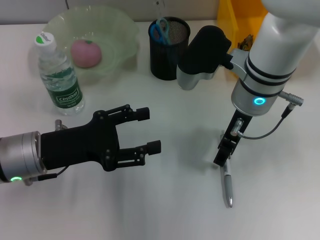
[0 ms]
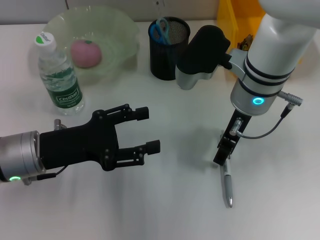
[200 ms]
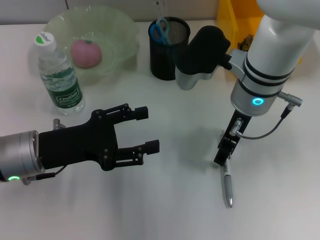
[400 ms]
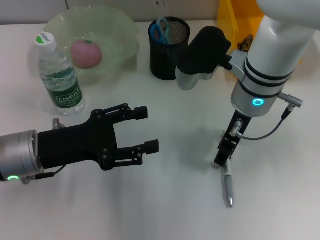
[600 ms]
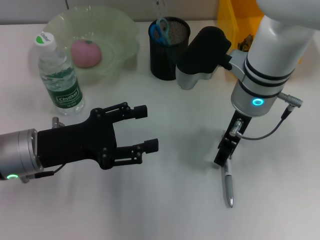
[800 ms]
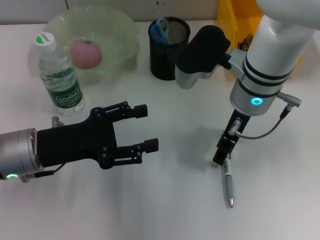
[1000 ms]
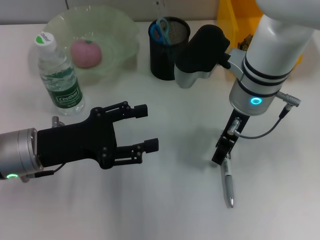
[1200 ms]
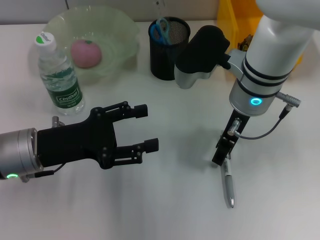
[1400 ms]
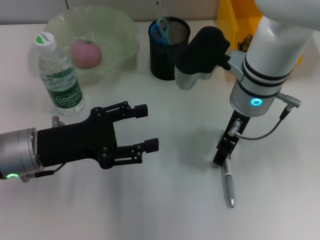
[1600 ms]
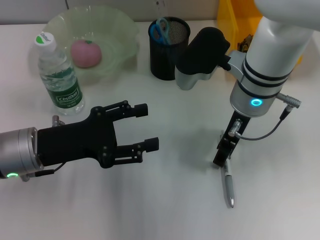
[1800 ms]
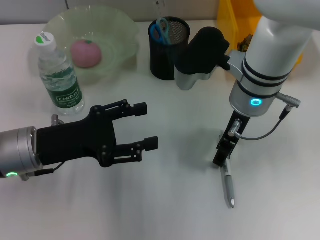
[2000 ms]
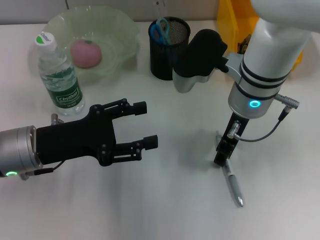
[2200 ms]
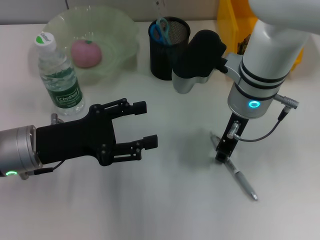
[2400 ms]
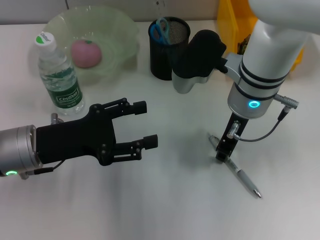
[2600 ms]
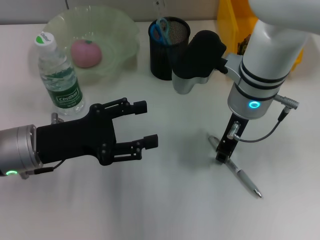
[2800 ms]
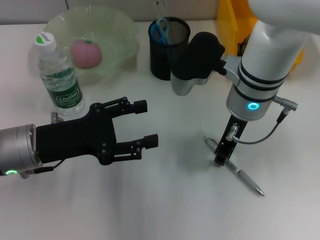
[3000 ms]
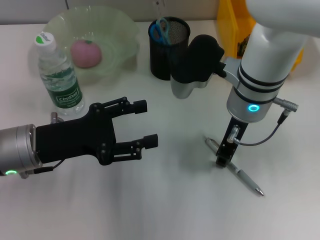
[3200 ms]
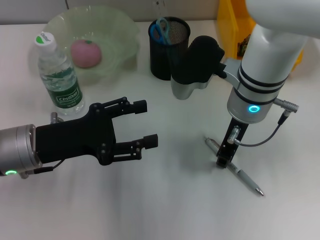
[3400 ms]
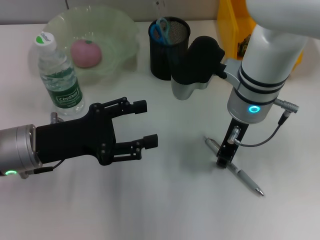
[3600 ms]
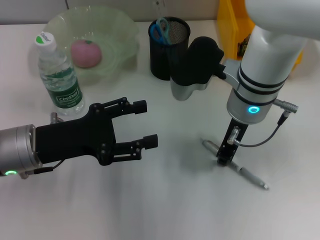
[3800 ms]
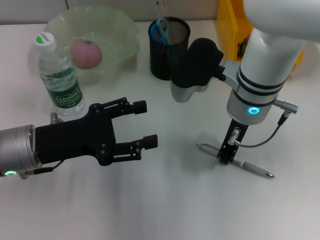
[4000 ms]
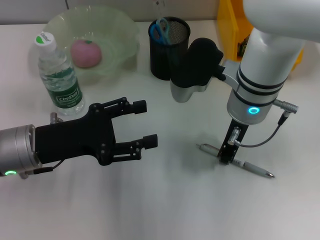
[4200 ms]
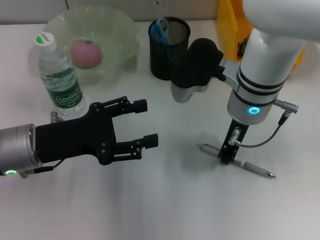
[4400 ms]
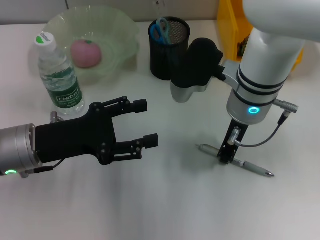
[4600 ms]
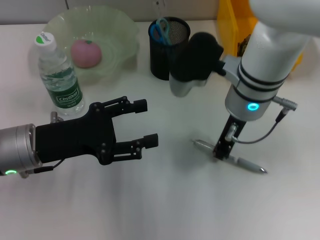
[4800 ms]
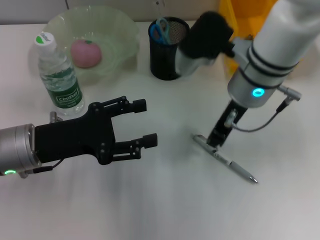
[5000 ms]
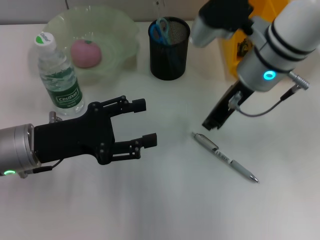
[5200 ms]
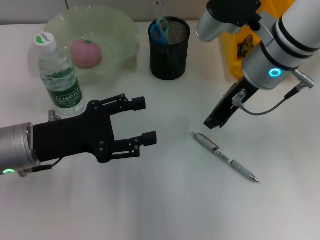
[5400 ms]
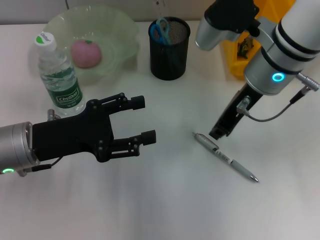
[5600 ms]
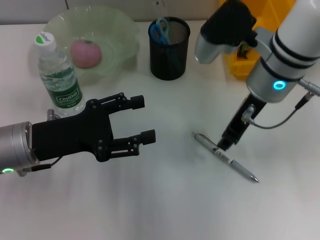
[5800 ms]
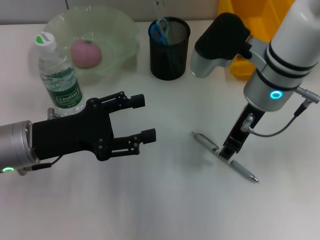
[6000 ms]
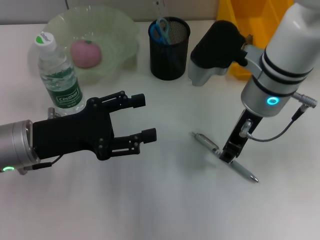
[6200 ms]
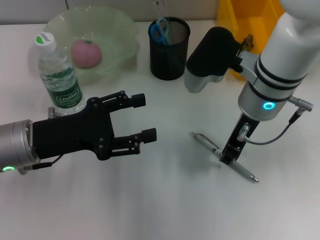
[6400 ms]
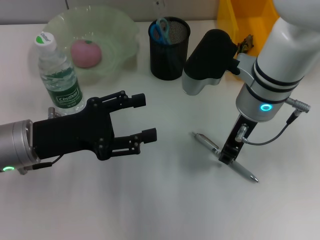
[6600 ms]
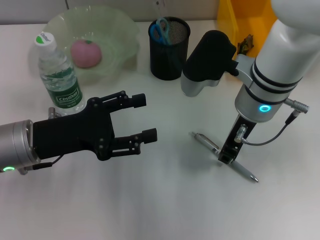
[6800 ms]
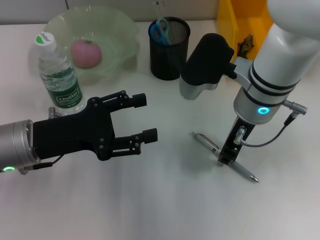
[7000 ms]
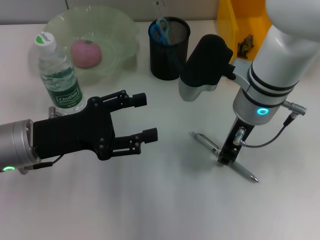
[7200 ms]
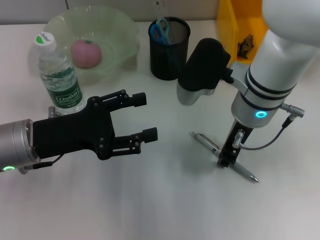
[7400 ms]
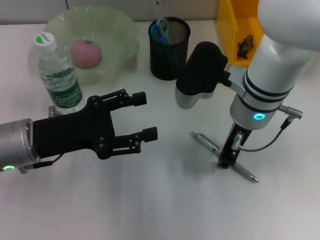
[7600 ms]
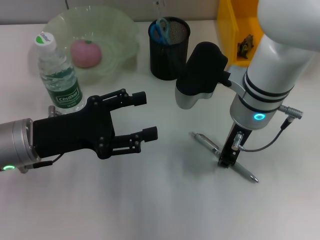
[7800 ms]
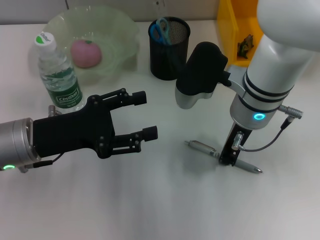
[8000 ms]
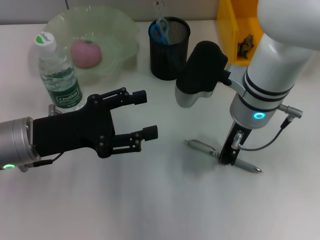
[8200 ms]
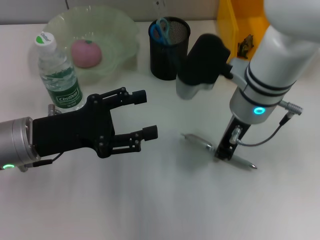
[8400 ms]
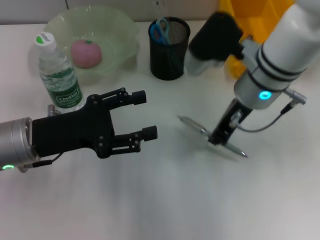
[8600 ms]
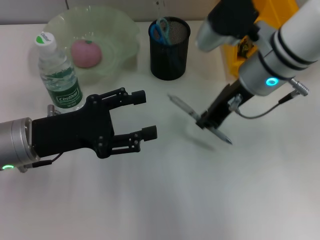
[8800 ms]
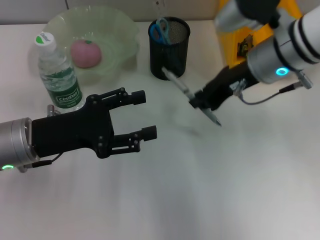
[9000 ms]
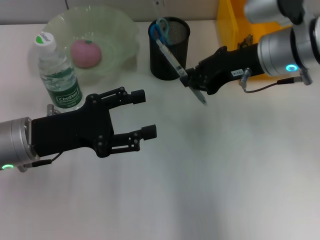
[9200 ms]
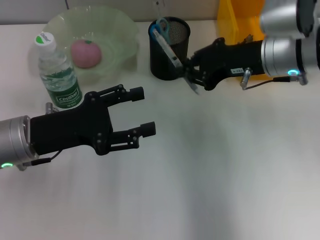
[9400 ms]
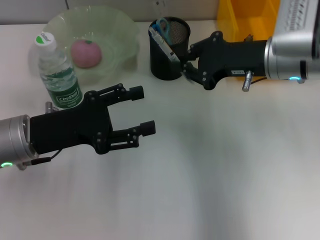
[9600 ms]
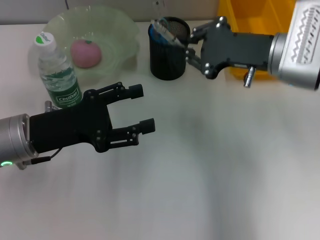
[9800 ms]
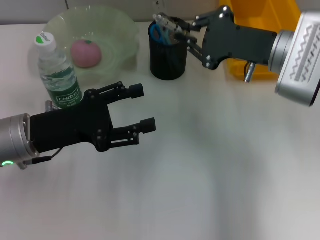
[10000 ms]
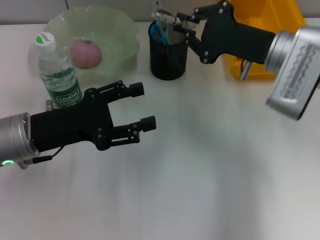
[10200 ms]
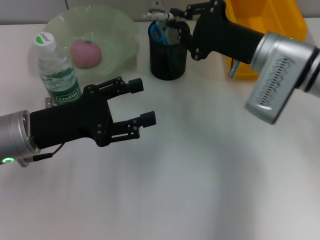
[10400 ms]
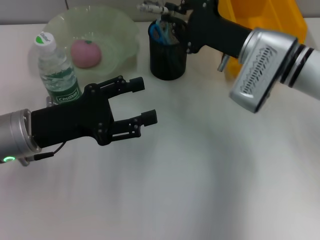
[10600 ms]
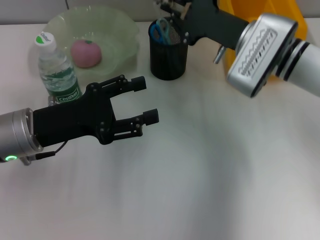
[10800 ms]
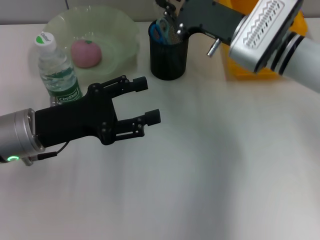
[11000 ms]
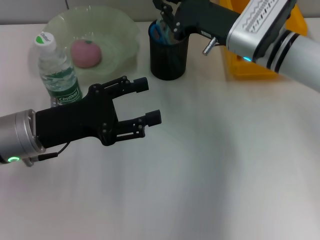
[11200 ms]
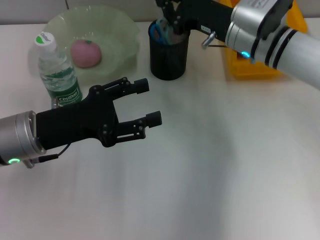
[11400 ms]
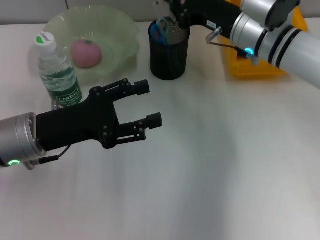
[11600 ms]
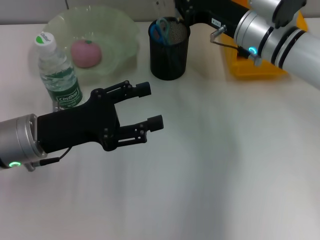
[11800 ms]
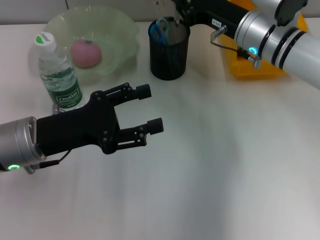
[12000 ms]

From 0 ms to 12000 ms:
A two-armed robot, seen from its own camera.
Step, from 0 ms to 8000 ms: Grab the gray spring-action pen with the right hand.
From 0 ms to 1600 ms: Neither gripper changes place.
From 1600 ms to 3000 ms: The right gripper closes its fingers.
From 3000 ms to 4400 ms: The two grippers keep their place.
From 6000 ms to 7600 ms: The grippers make only small movements.
From 7600 ms to 9000 ms: The right gripper travels to the right by about 5 cm.
From 9000 ms to 10400 ms: The right gripper goes about 5 cm downward.

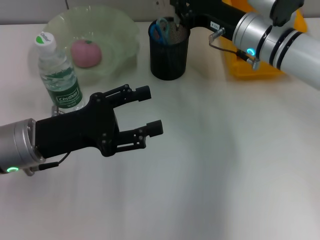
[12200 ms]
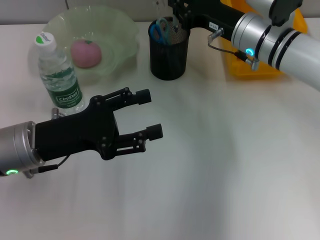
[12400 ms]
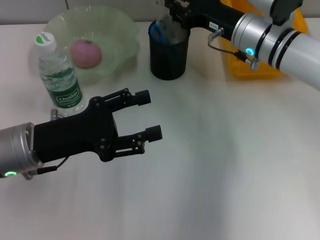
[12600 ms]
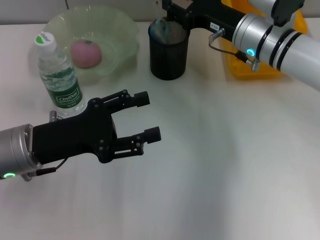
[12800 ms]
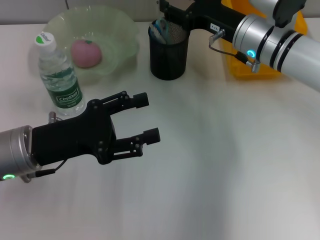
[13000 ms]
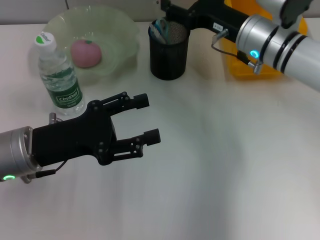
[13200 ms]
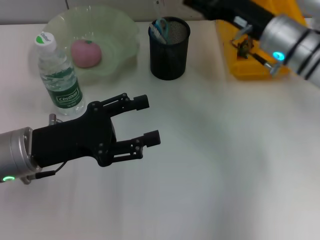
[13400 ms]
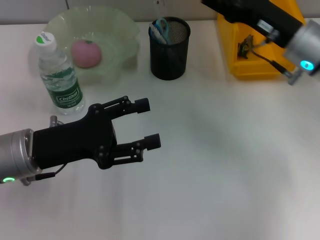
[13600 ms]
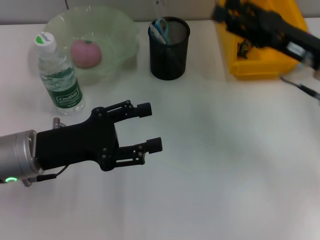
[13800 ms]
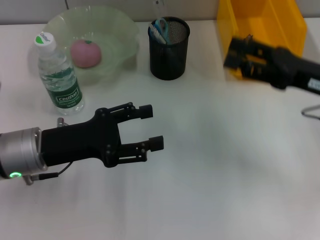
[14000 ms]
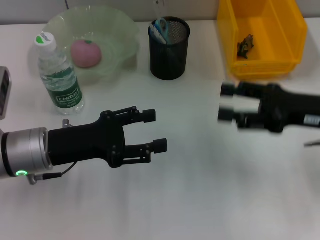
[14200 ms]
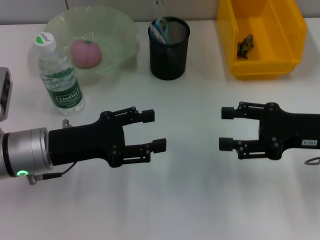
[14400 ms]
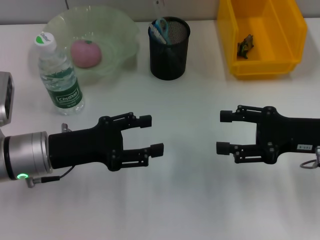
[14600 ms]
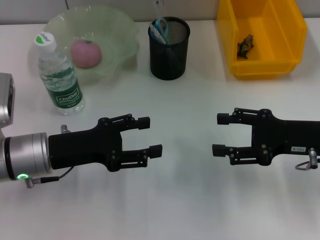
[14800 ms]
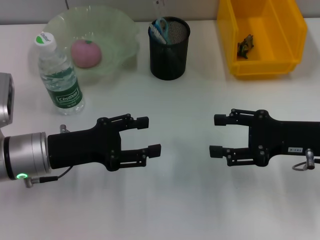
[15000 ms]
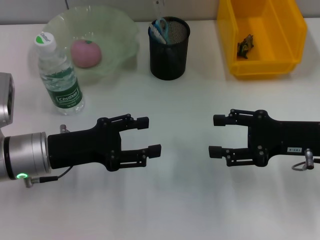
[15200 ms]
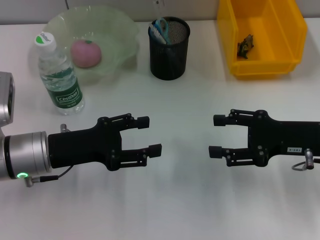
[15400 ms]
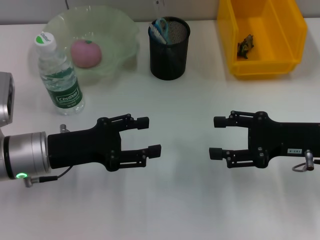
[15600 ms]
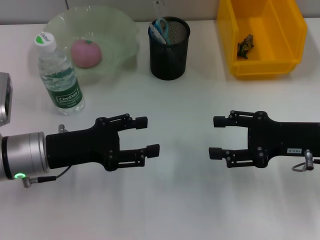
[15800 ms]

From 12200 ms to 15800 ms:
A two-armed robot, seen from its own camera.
From 12200 ms to 14000 ms: The right gripper is displaced to the right and backward by about 15 cm, and opens.

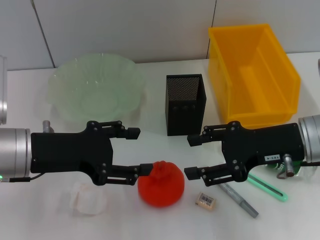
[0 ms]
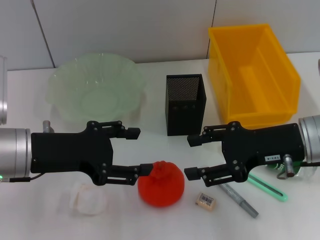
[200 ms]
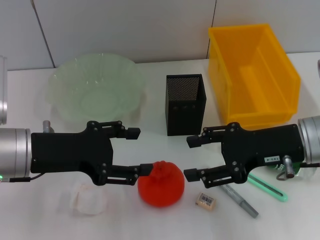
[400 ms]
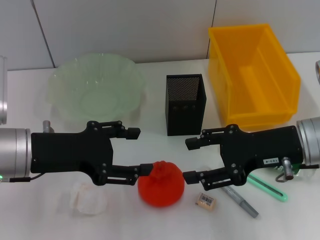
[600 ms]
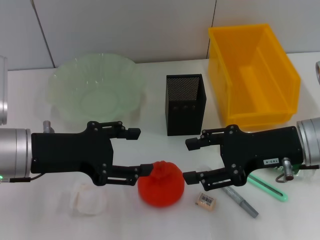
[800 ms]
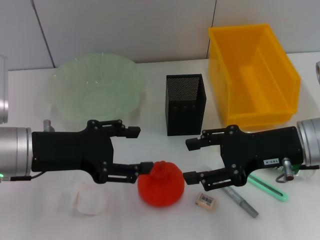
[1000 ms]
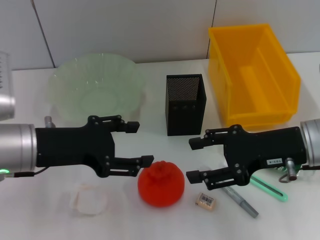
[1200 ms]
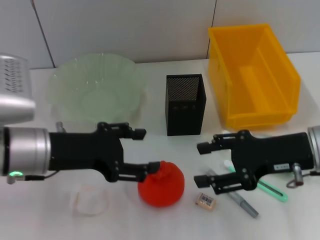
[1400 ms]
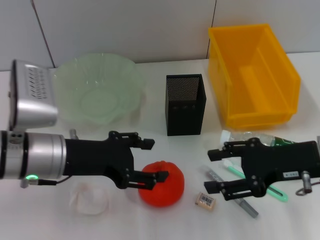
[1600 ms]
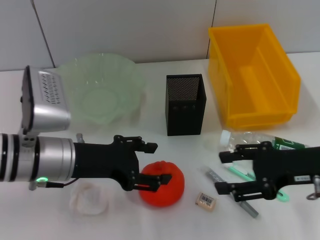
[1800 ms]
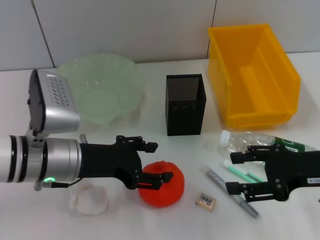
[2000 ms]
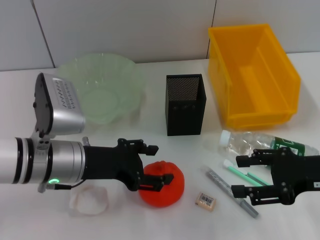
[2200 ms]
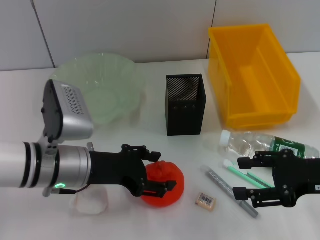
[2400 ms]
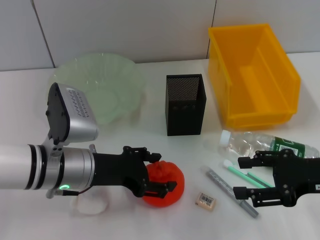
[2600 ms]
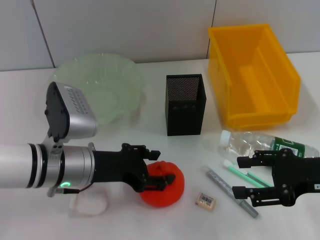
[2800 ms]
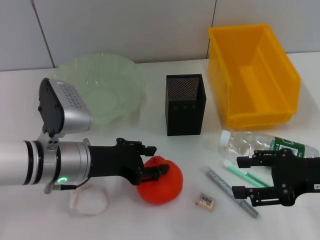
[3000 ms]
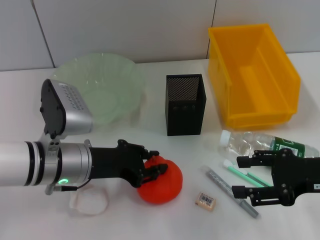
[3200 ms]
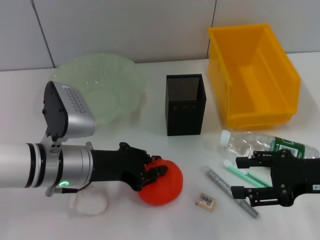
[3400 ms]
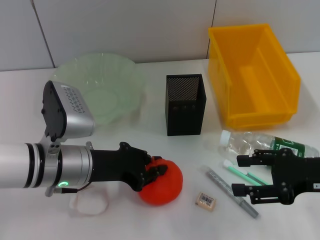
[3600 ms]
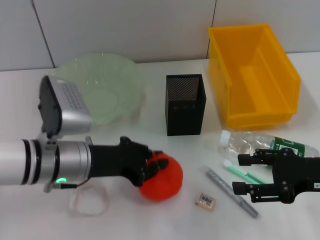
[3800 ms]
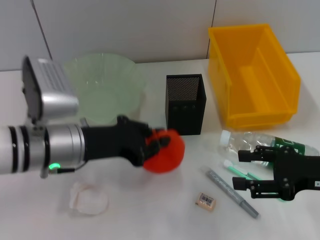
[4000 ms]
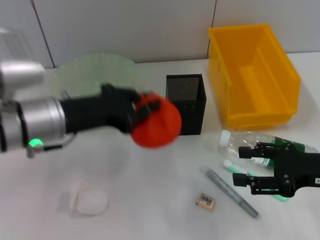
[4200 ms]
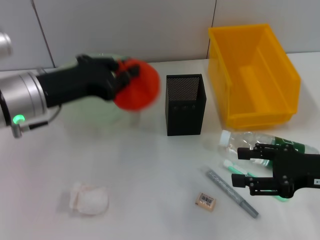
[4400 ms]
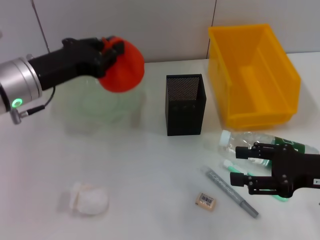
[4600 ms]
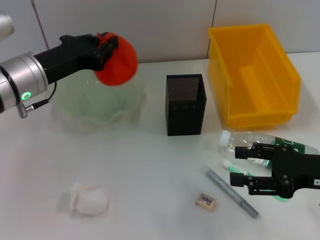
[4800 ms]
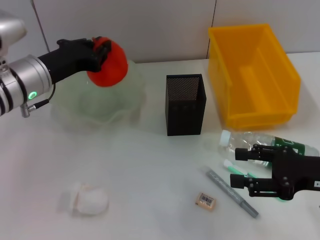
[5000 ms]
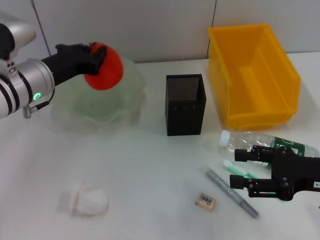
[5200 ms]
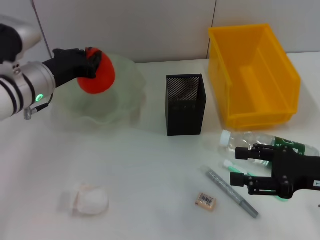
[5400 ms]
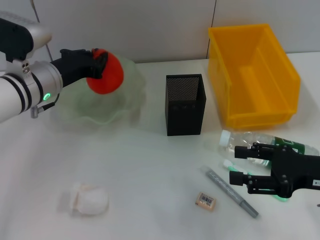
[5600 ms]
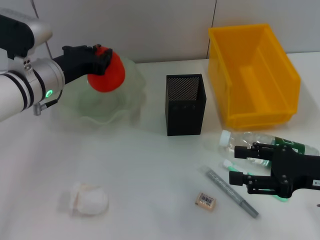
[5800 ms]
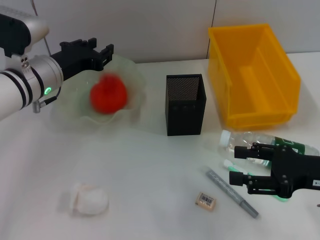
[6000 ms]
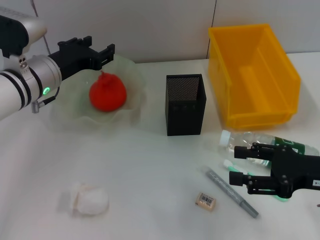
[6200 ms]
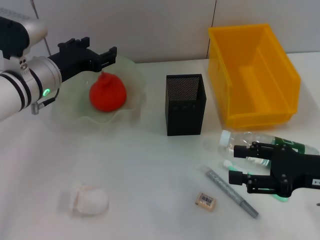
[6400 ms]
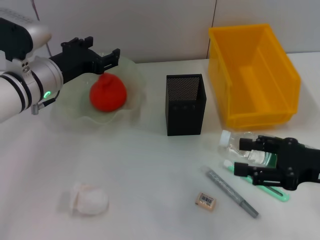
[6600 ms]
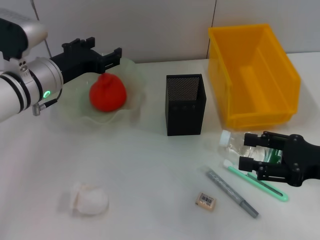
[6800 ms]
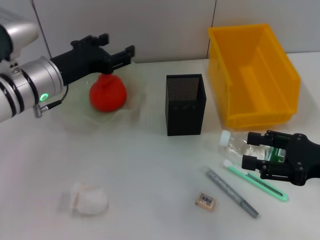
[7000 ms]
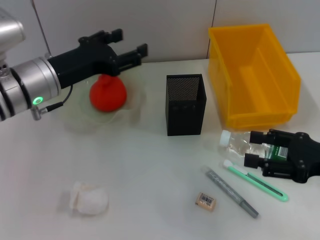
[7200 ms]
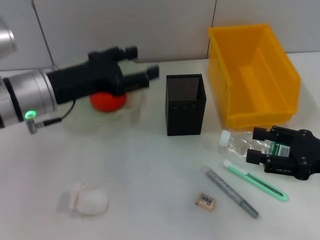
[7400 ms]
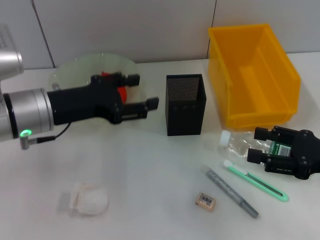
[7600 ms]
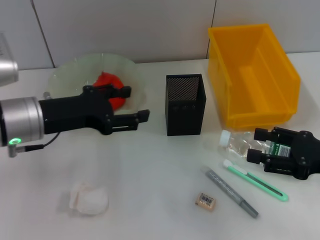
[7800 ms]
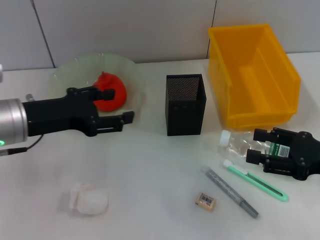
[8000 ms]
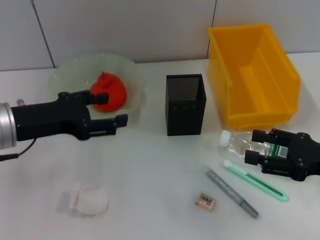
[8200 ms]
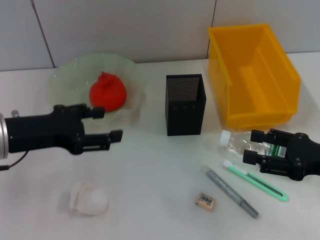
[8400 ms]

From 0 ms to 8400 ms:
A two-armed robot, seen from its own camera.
Step, from 0 ms to 3200 ms: Grab the orange with the left hand.
Step, from 3600 ms to 6200 ms: Place the orange into the fruit bowl with the left hand.
From 0 ms to 1400 ms: The grippers move only a little.
From 1400 ms to 2800 ms: The left gripper is displaced downward by some 5 cm; the right gripper heads to the right, covering approximately 5 cm.
From 2800 ms to 4200 ms: The left gripper heads upward, covering some 10 cm, and closes its fingers.
From 4200 ms to 5600 ms: The left gripper is displaced forward by approximately 10 cm.
From 5600 ms to 7000 ms: The left gripper opens.
From 7000 ms to 8400 ms: The left gripper shifts roughly 10 cm backward and to the left.
